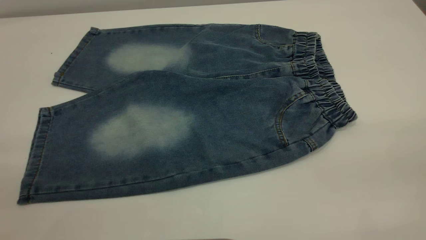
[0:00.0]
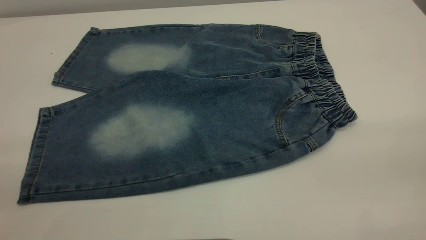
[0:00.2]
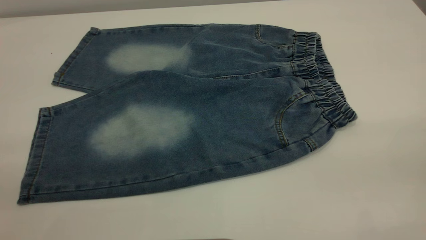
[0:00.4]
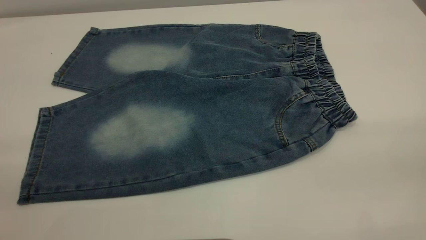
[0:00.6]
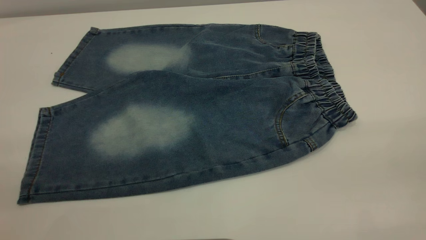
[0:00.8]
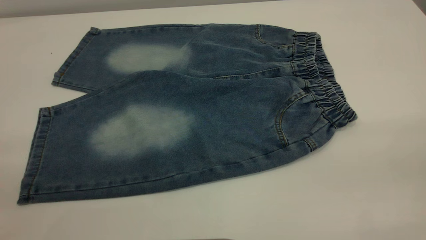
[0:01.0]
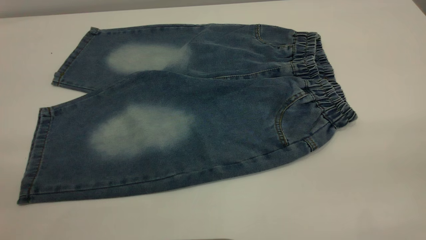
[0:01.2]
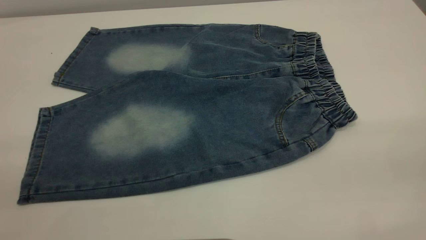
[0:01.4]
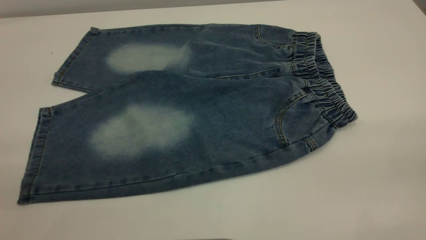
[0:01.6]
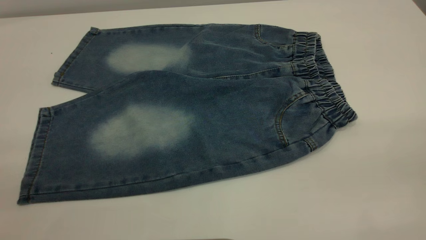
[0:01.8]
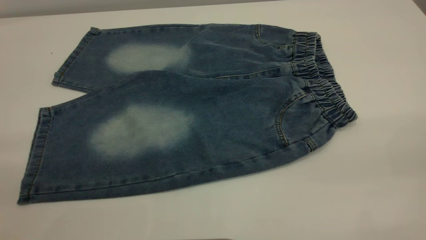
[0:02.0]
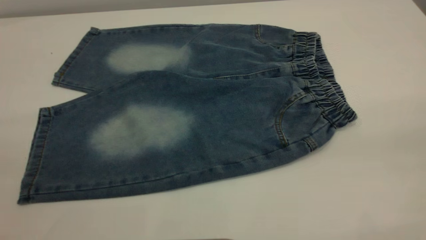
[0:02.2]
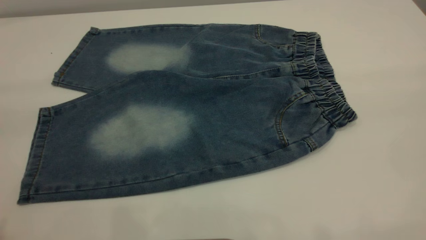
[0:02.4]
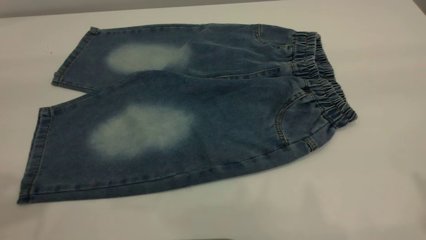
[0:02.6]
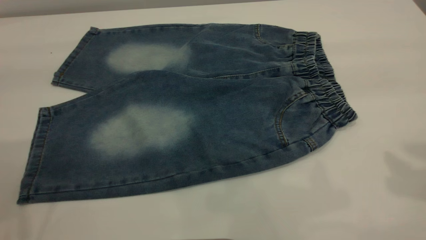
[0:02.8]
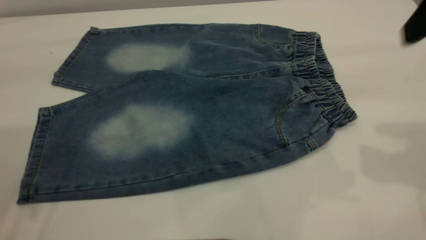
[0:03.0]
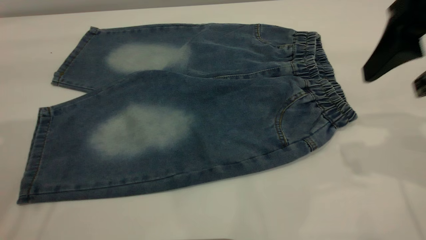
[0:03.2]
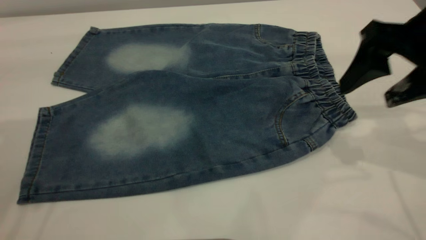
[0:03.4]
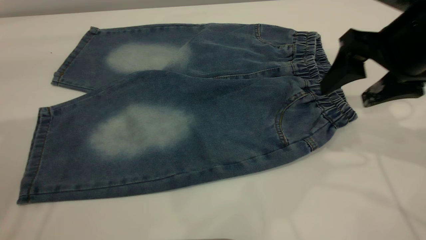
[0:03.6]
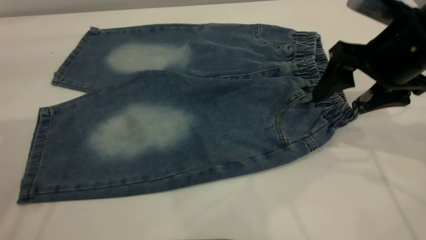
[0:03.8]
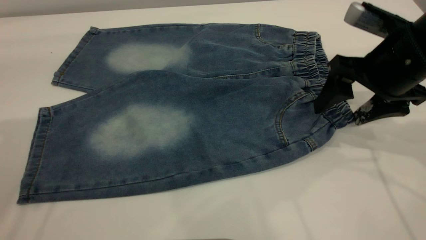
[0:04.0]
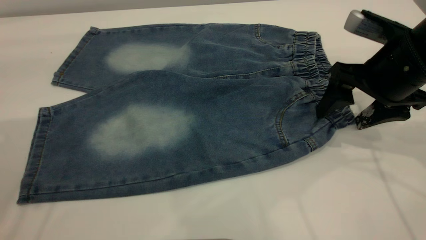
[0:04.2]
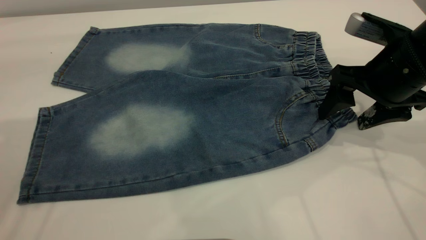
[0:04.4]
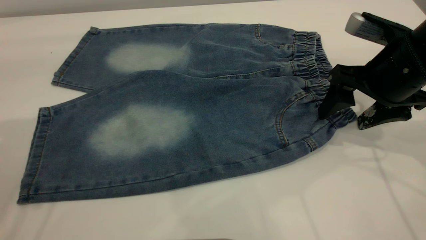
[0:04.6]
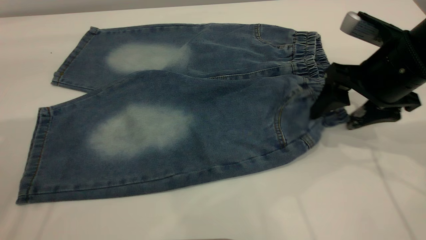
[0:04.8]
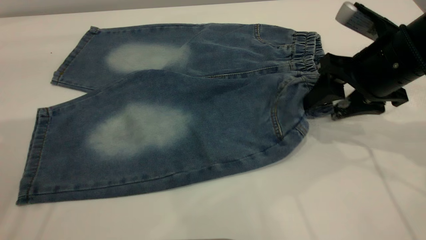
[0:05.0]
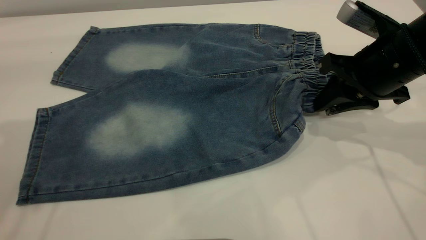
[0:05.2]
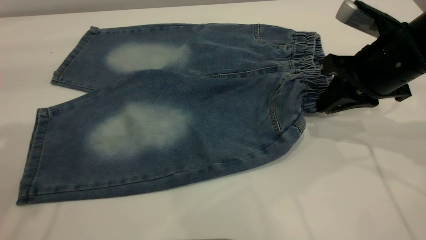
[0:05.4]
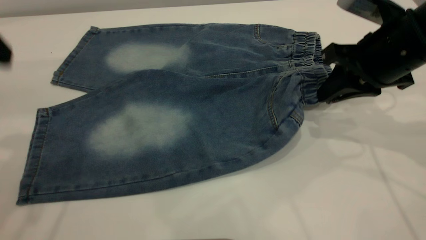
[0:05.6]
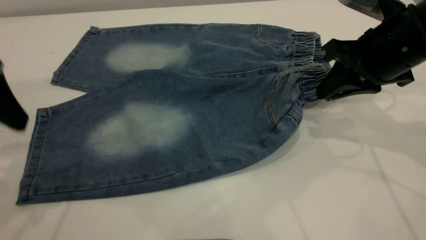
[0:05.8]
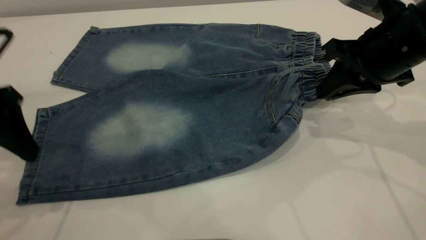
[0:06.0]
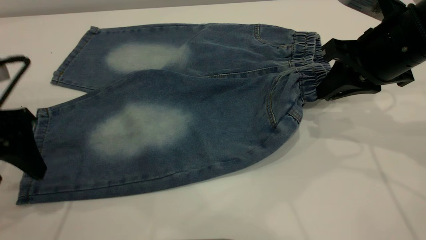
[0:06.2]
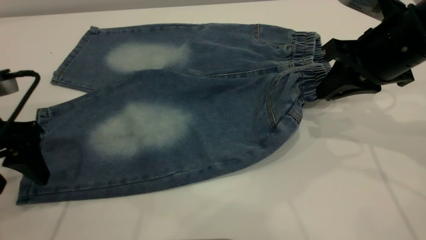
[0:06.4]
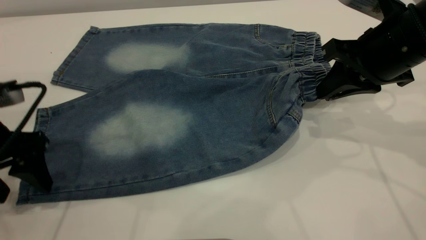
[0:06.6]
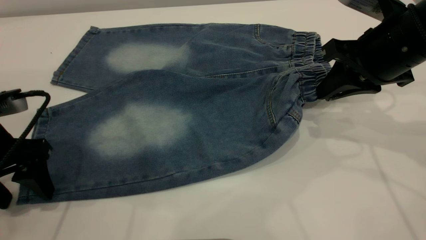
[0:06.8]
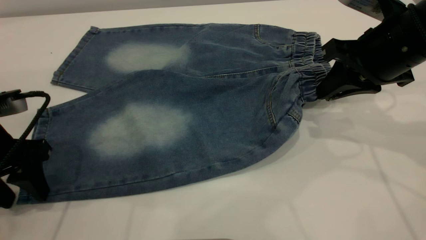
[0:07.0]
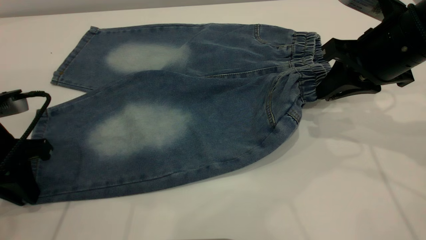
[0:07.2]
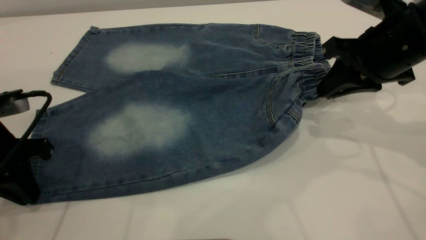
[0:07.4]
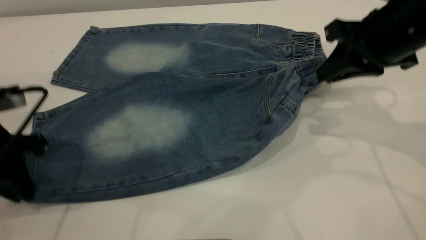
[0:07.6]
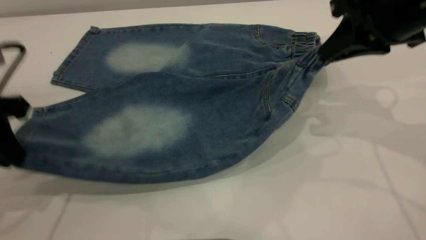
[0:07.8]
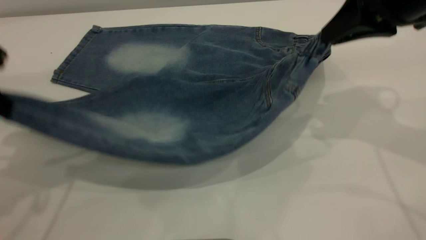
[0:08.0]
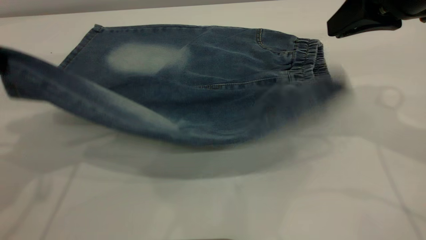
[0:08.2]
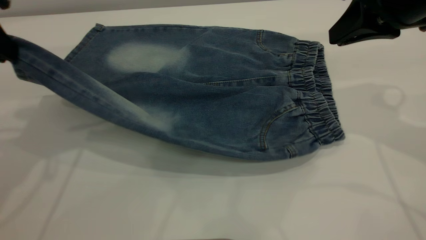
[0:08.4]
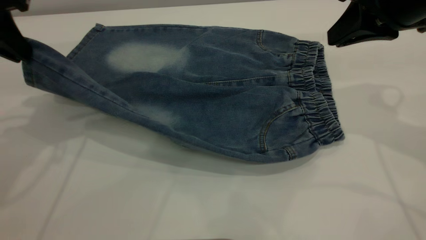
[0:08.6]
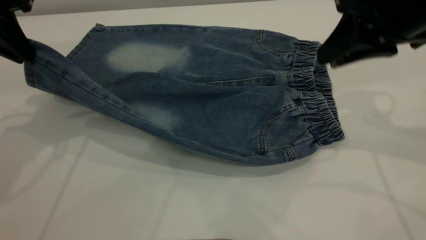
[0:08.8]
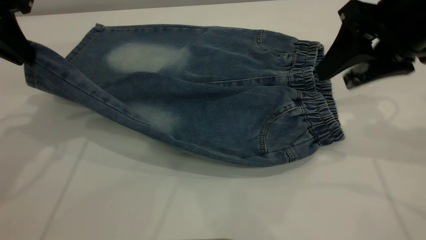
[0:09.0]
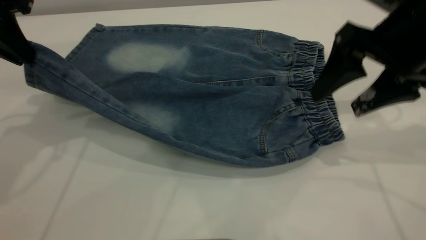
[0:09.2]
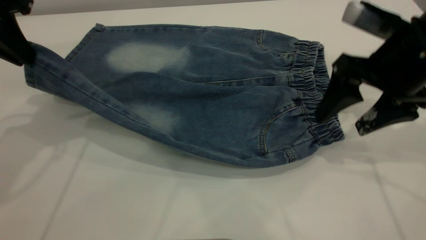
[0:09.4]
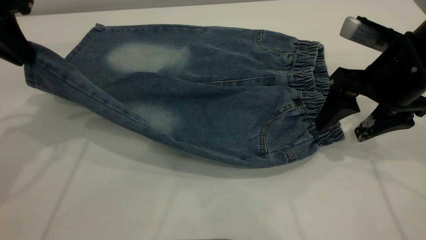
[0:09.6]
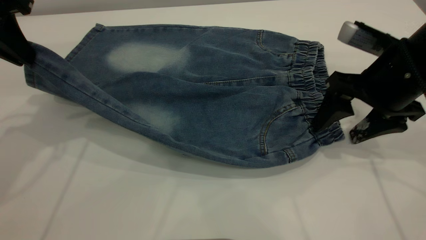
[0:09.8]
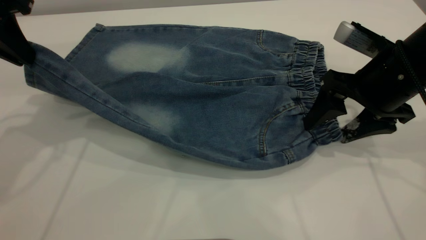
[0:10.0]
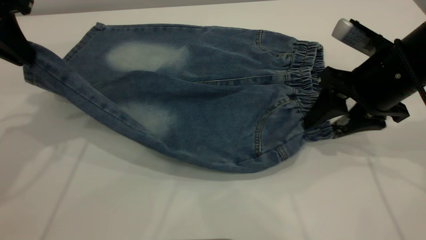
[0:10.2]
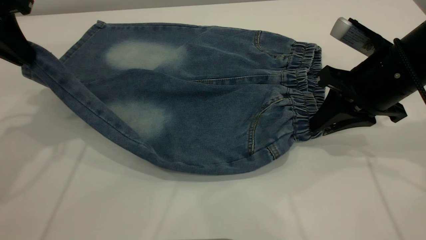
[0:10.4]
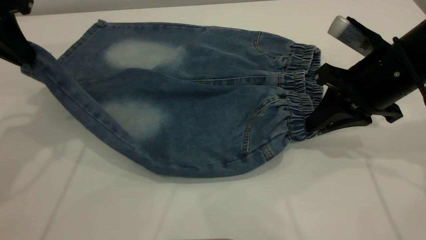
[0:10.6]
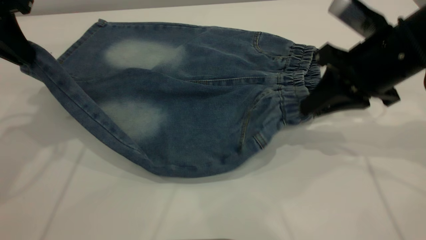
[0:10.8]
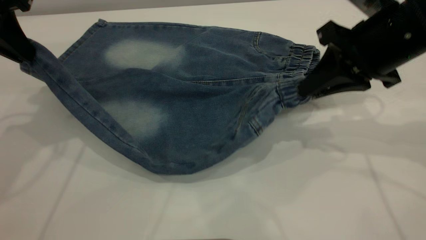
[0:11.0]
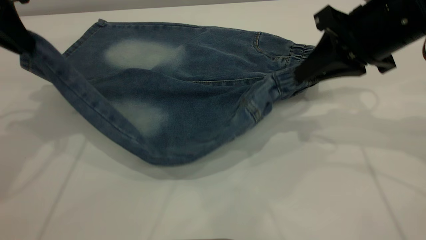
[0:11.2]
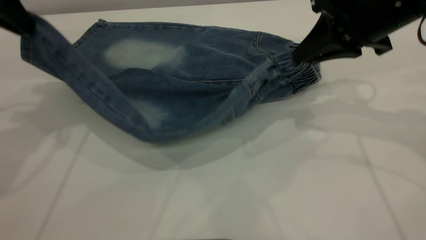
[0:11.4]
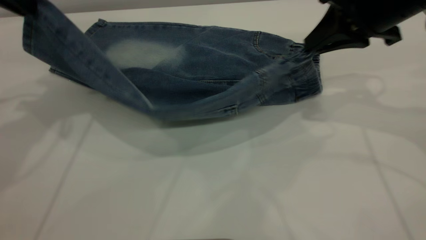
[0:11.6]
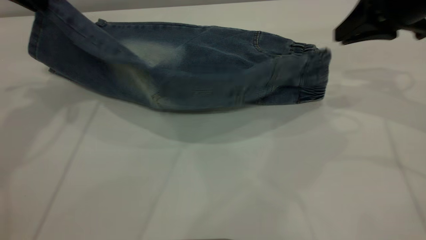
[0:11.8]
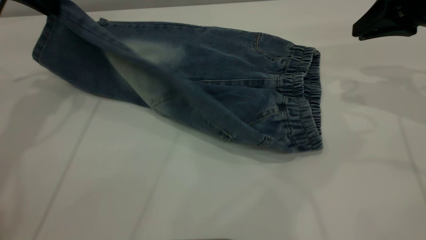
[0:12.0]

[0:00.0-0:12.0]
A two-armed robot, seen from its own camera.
0:00.0 to 0:01.6: Both grippers stay put.
0:01.6 to 0:03.0: The right gripper shifts roughly 25 cm forward.
0:03.0 to 0:04.4: The right gripper heads downward and forward, covering roughly 15 cm.
0:04.4 to 0:06.0: The right gripper closes its fingers. Meanwhile the left gripper moves downward, some 15 cm.
0:06.0 to 0:07.6: The left gripper goes about 5 cm downward, and closes its fingers.
0:07.6 to 0:09.0: The left gripper goes roughly 15 cm upward and forward. Meanwhile the right gripper opens.
0:09.0 to 0:10.4: The right gripper heads downward, covering roughly 10 cm, and closes.
0:10.4 to 0:12.0: The left gripper shifts about 10 cm forward; the right gripper moves upward, to the right and forward, about 10 cm.

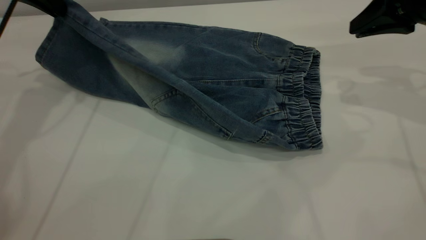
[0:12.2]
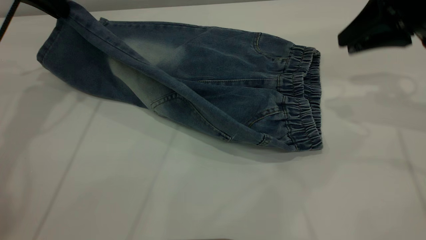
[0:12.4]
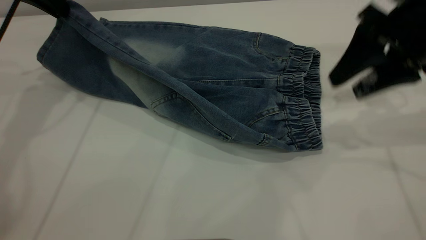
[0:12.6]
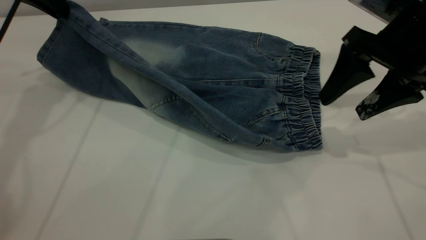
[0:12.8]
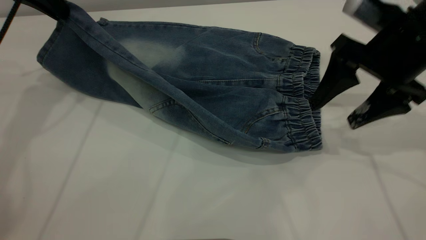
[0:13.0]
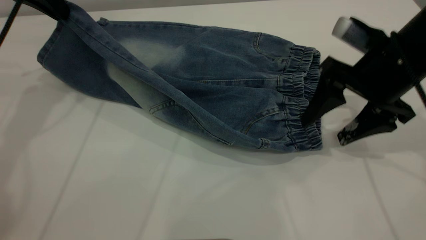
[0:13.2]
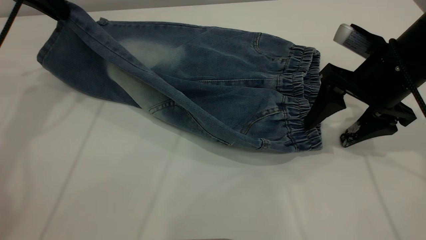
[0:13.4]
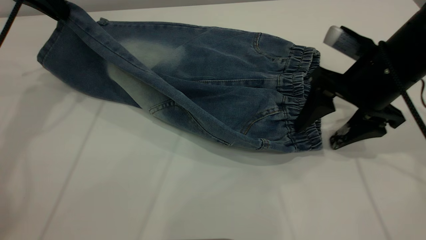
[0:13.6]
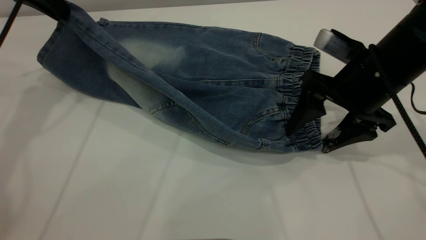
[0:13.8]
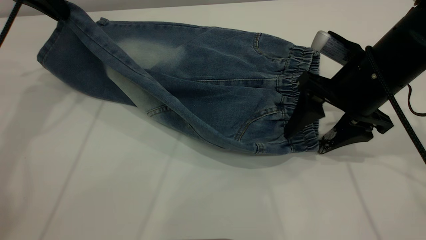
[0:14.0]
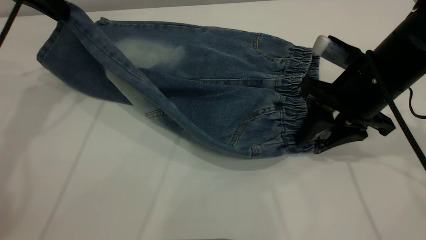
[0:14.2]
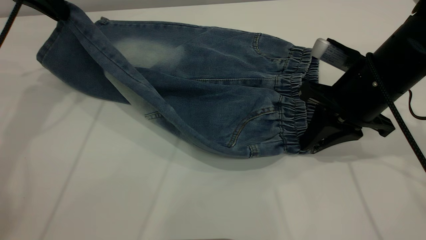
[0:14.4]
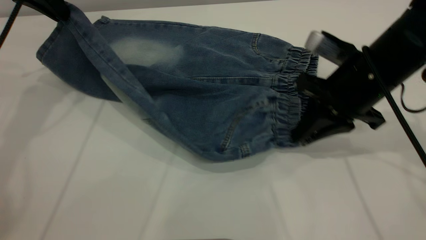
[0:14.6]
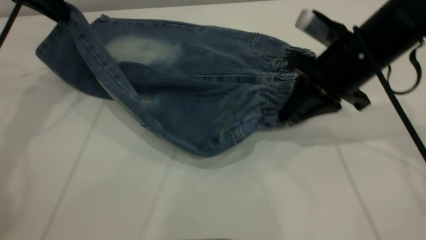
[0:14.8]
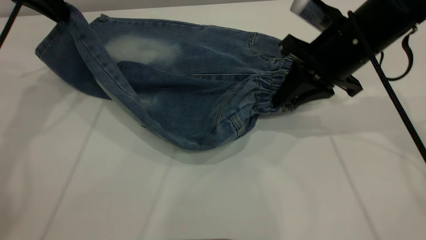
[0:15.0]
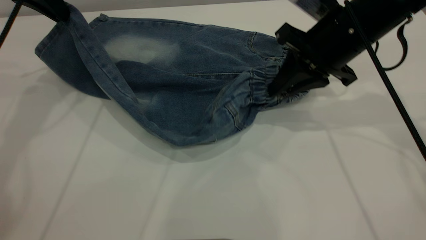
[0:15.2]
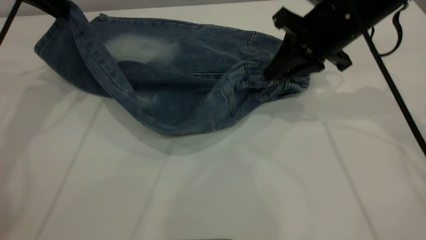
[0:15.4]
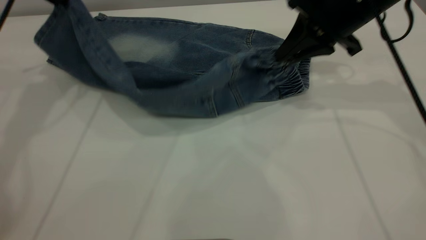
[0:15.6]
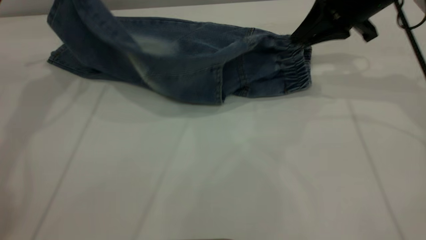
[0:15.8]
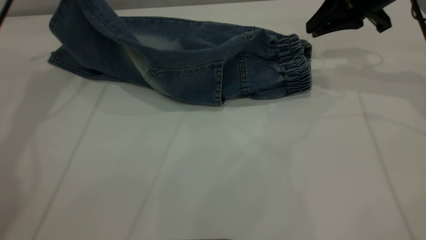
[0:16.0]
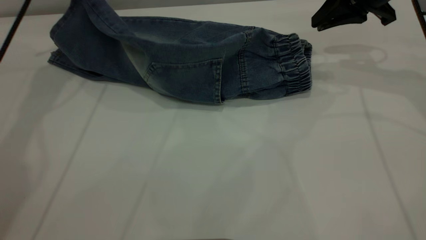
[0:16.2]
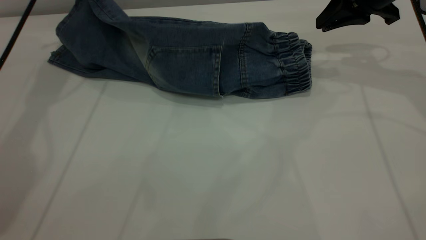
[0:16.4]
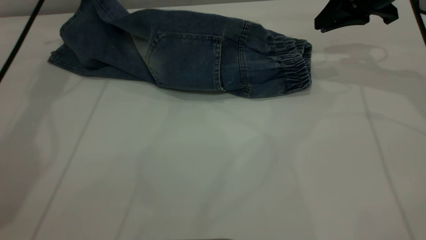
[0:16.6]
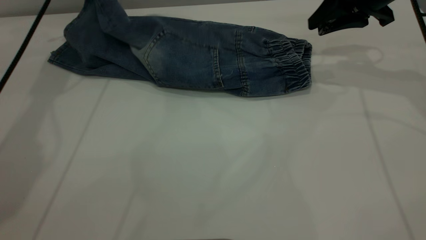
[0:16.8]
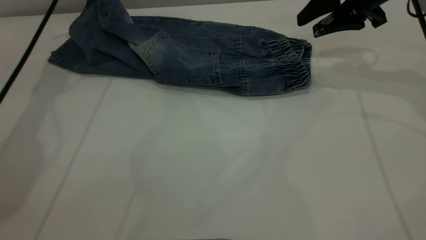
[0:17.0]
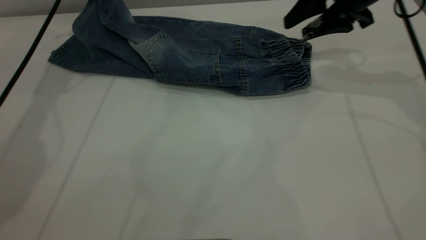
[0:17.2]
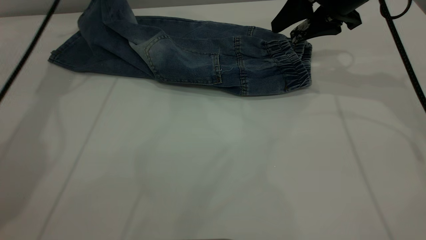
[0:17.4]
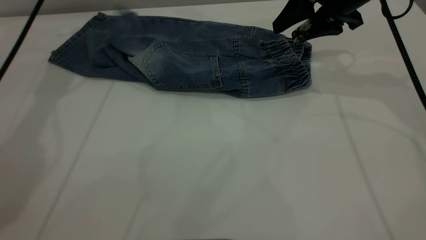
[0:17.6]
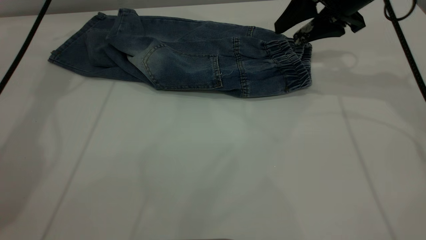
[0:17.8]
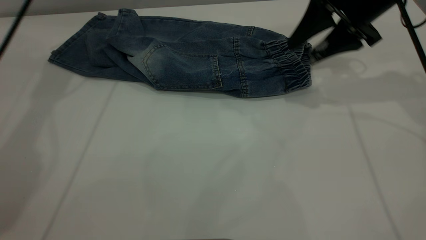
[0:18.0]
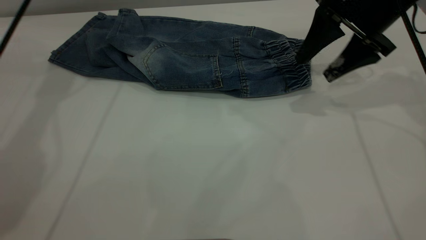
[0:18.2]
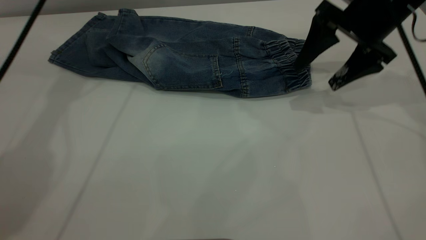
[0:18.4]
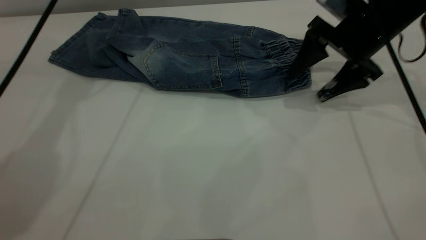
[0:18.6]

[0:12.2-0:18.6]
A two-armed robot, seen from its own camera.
Step, 0:12.2 to 0:18.2: Fold the bottom of the pants upward.
0:12.2 to 0:13.8: The right gripper heads downward, to the left and backward, covering approximately 15 cm, and opens up.
0:13.8 to 0:15.4: The right gripper moves forward, about 5 cm, and closes up.
0:15.4 to 0:17.0: The left gripper goes approximately 10 cm forward; the right gripper travels to the right by about 5 cm, and opens.
0:17.0 to 0:18.6: The left gripper travels to the right by approximately 5 cm, and opens its fingers; the right gripper is displaced downward by some 5 cm, and opens its fingers.
